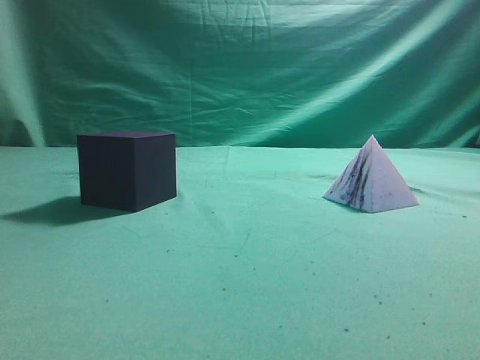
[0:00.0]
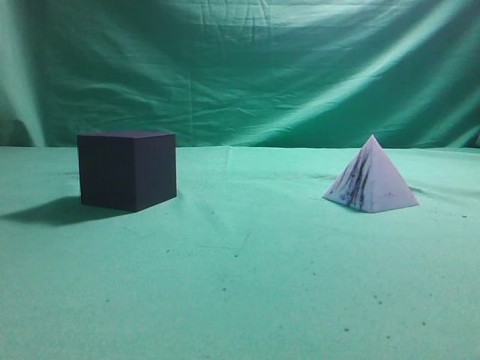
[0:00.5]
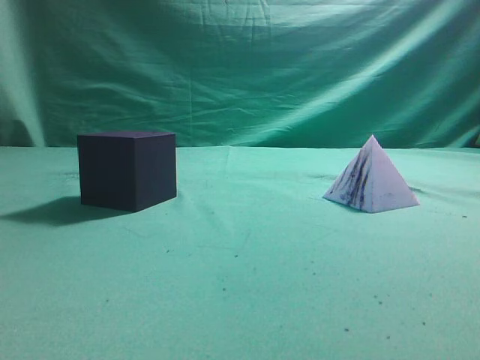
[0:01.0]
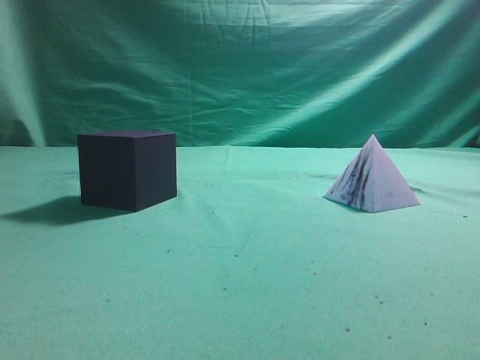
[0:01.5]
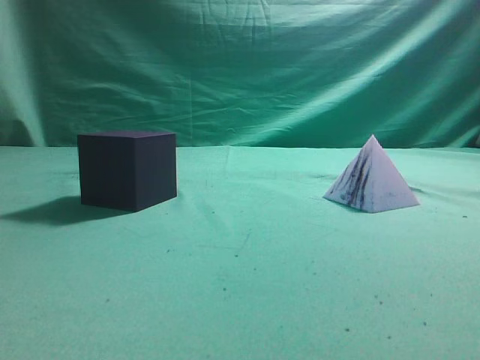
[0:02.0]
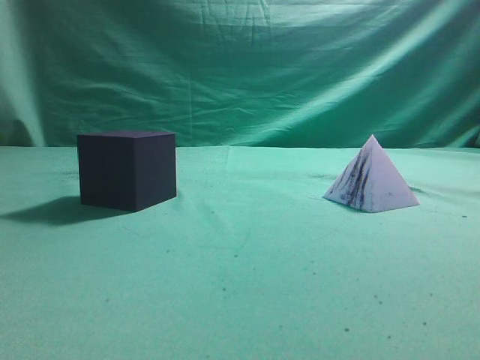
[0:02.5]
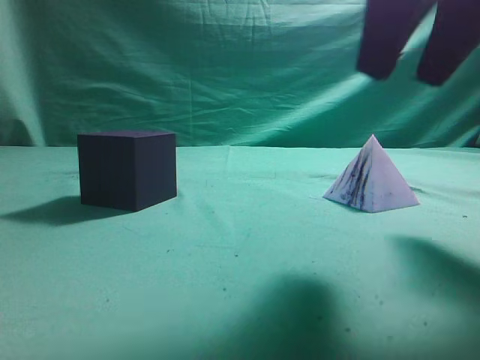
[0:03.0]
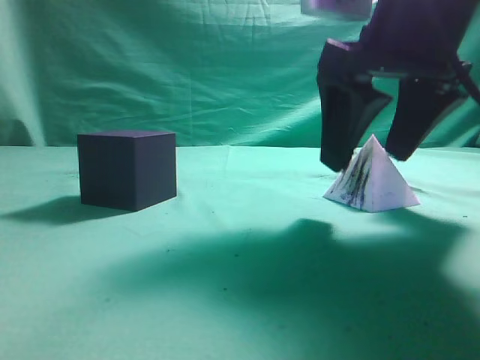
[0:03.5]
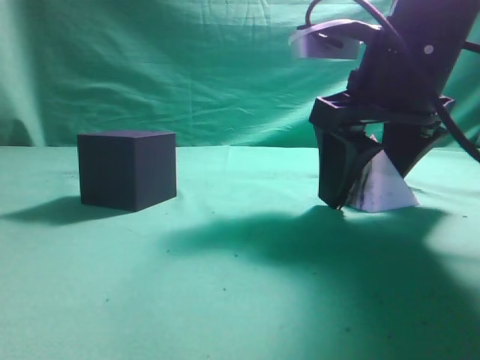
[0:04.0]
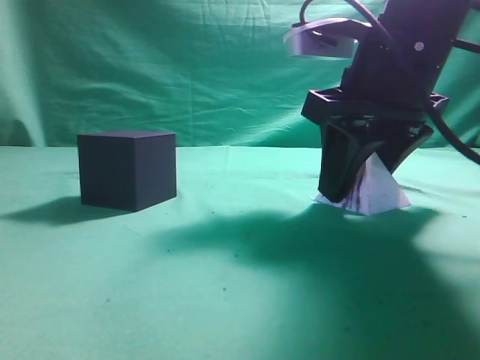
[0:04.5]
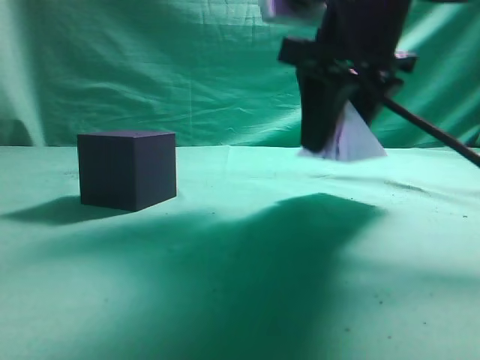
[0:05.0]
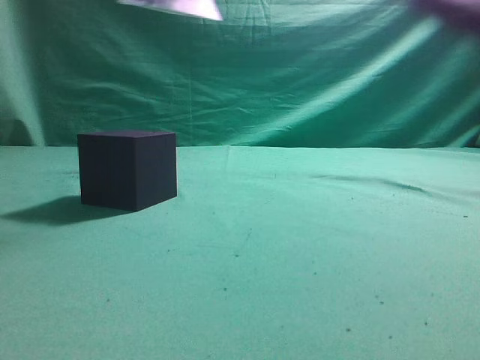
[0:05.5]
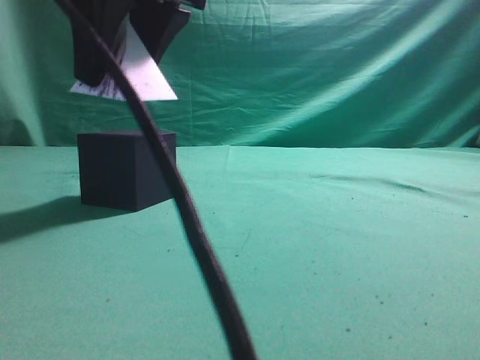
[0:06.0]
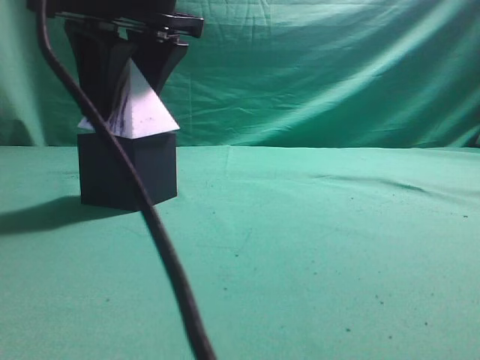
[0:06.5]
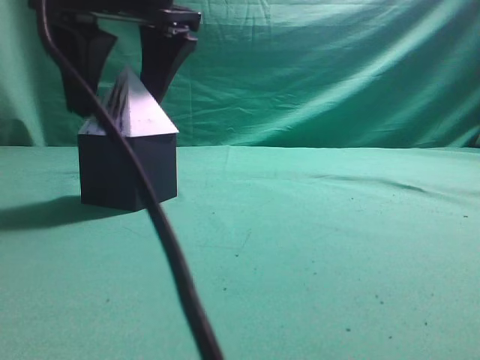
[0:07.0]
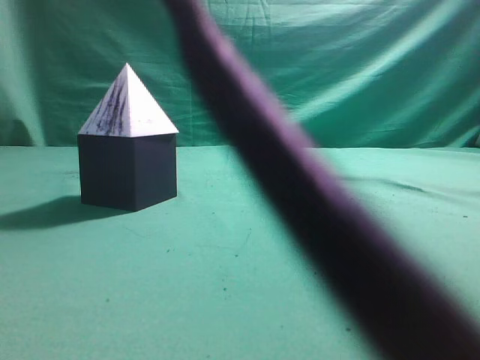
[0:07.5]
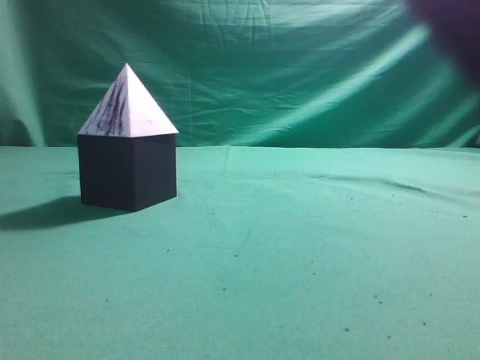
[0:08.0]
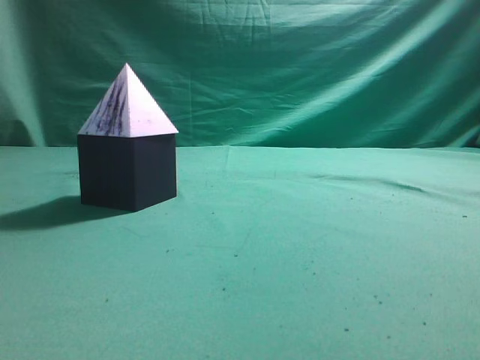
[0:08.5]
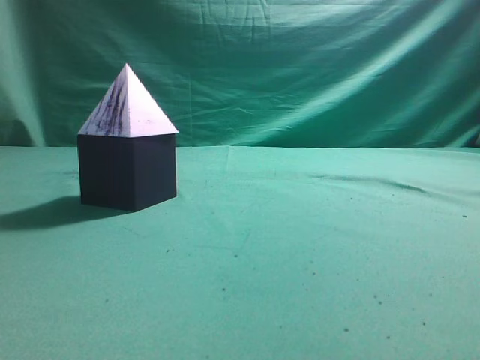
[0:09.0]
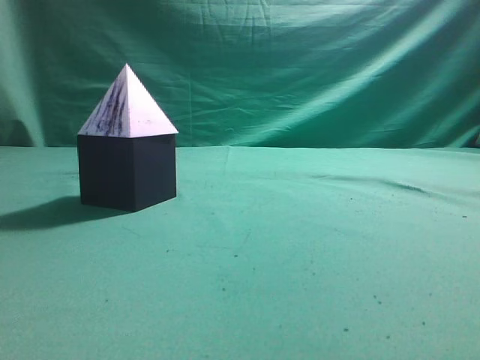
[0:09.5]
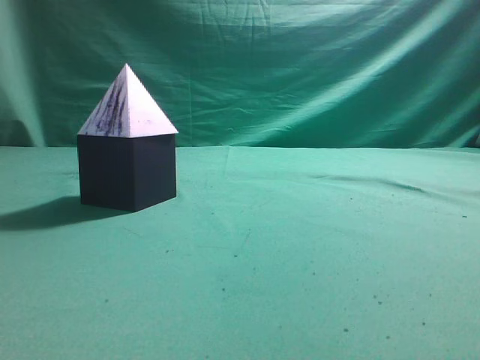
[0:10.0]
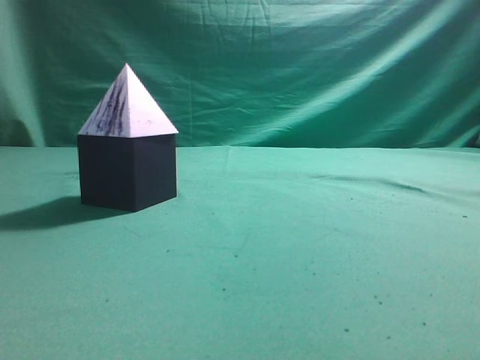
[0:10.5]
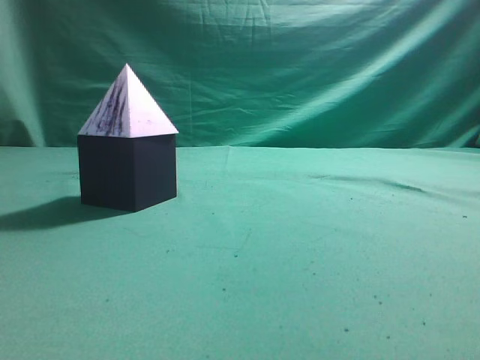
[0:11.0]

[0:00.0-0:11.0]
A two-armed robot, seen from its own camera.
Task of the whole recording: pick up the square pyramid from the table and place it on the cube block.
Step, 0:00.0 to 0:05.0: Grasp the triangular block.
Step, 0:05.5 to 0:07.0: Place the block onto the cube-shaped block.
0:02.0 to 0:03.5: The right gripper travels forward, to the left and downward by roughly 25 cm, and opens.
0:03.5 to 0:05.5: The right gripper moves to the left and upward, roughly 20 cm, and closes up.
0:05.5 to 0:07.5: The right gripper goes downward and returns, approximately 10 cm each way.
0:07.5 to 0:09.0: The right gripper shifts about 30 cm to the right and backward, and closes up.
